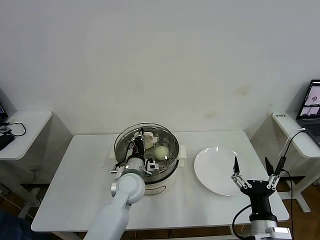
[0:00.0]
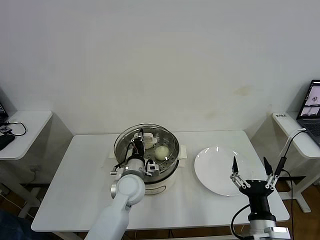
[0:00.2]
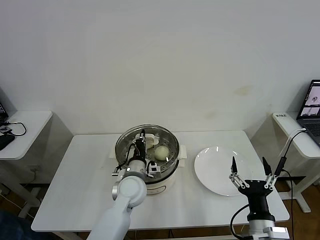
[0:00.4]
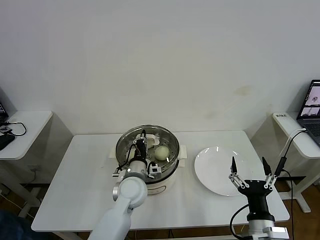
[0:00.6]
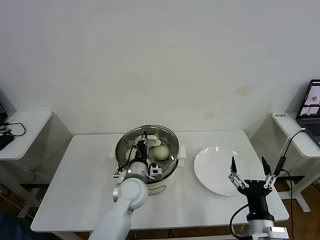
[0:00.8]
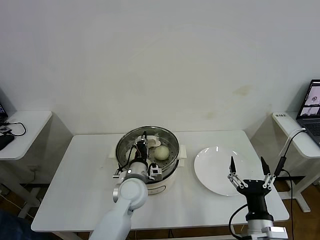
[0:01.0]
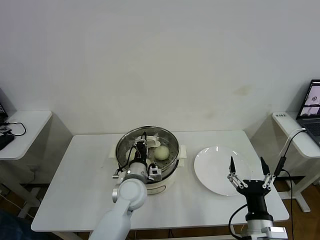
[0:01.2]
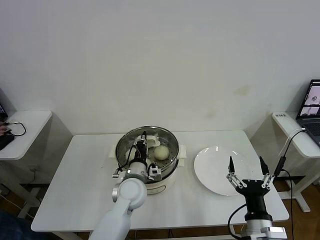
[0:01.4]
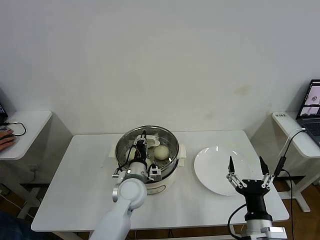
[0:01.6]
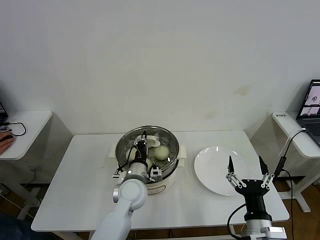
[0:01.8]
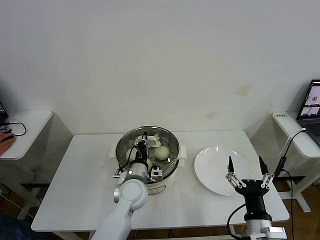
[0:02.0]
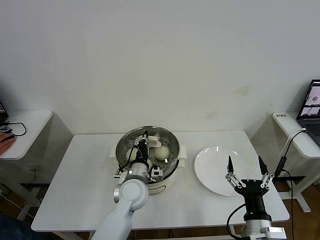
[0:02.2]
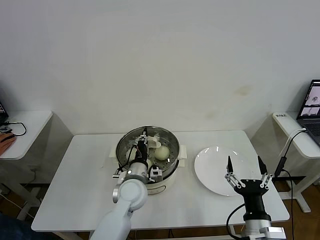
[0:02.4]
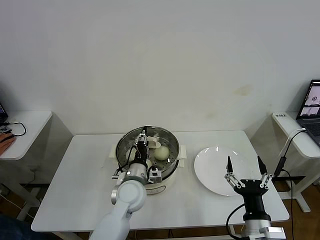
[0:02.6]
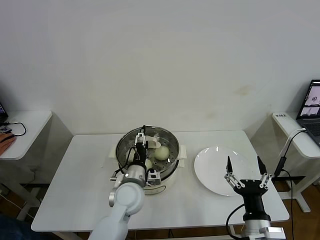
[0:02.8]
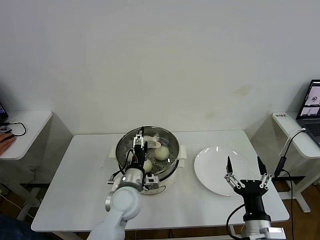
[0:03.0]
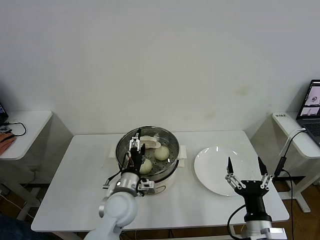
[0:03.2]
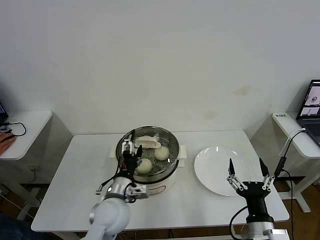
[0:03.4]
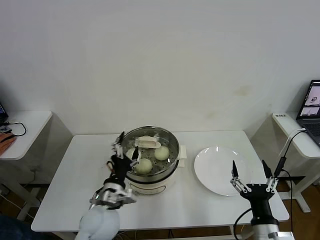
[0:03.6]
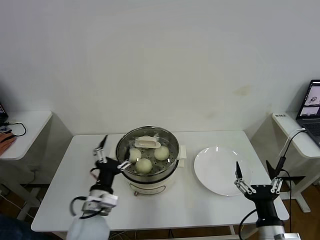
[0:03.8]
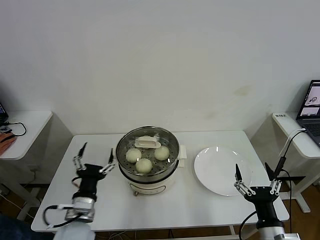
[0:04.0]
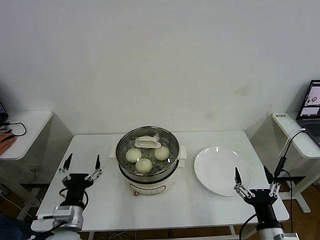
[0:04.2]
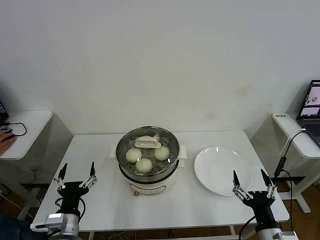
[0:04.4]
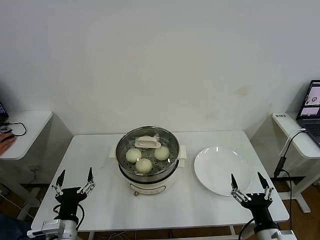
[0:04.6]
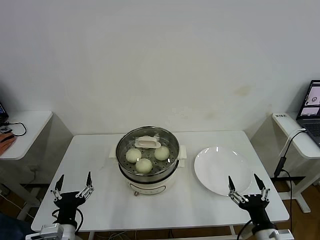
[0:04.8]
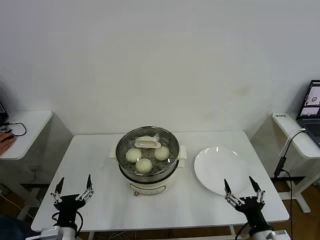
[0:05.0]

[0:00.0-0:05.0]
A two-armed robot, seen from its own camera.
Task of the whole recording: take steamed baozi put them in steamer then cover it.
Step, 0:00.0 to 0:03.2: Place the pot lid on the steamer with left gripper.
0:00.0 to 0:01.6: The grippers move only a little.
0:01.6 to 0:03.4: The left gripper goes roughly 5 cm backward, and opens its fingers.
0:03.4 to 0:05.0: The left gripper travels backward and to the left by approximately 20 cm.
